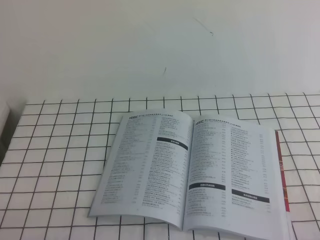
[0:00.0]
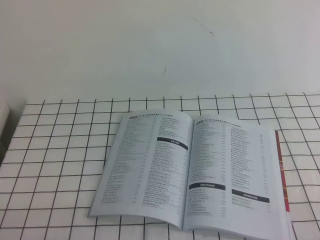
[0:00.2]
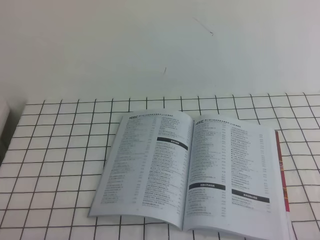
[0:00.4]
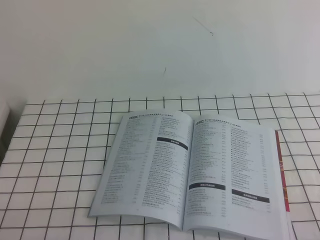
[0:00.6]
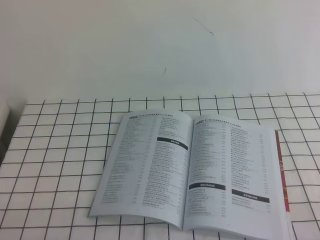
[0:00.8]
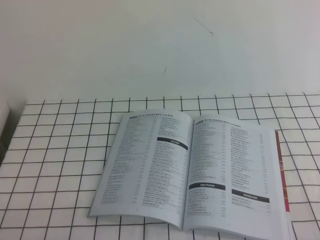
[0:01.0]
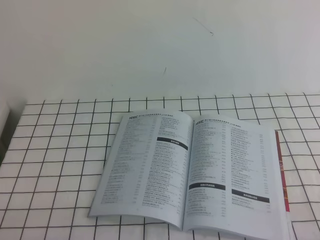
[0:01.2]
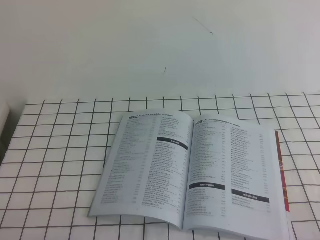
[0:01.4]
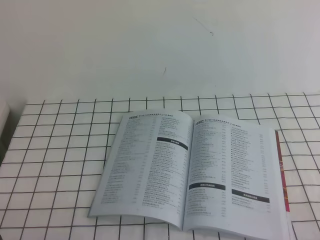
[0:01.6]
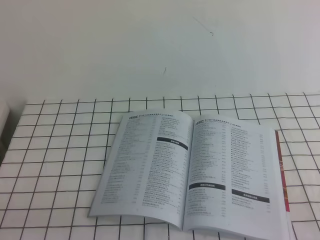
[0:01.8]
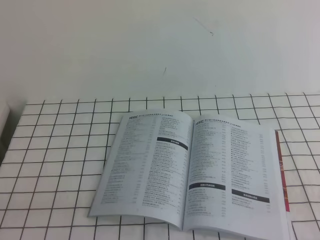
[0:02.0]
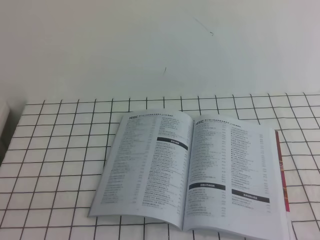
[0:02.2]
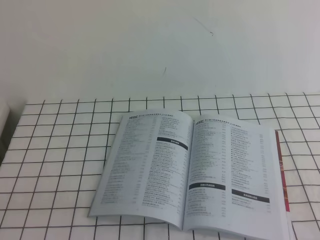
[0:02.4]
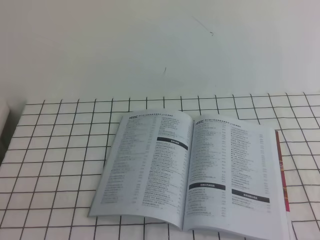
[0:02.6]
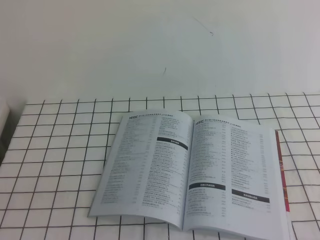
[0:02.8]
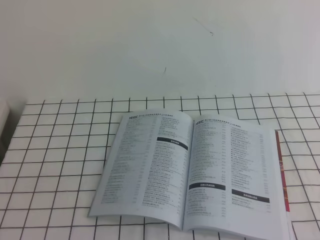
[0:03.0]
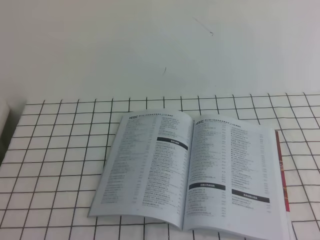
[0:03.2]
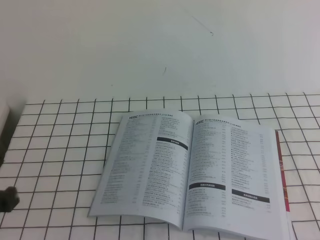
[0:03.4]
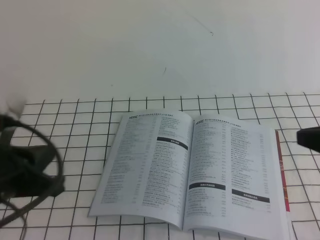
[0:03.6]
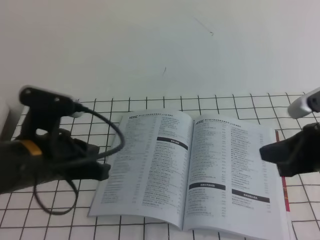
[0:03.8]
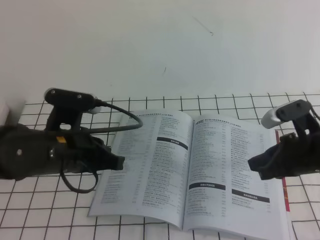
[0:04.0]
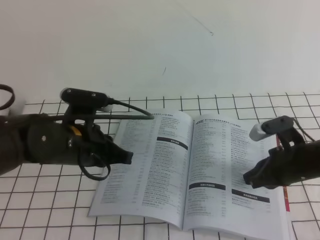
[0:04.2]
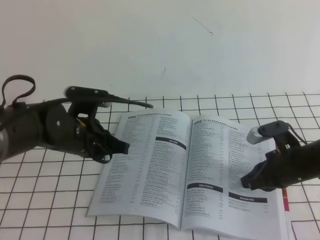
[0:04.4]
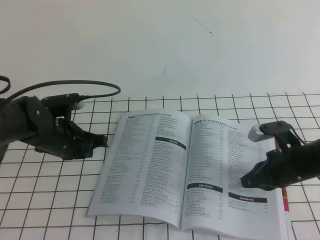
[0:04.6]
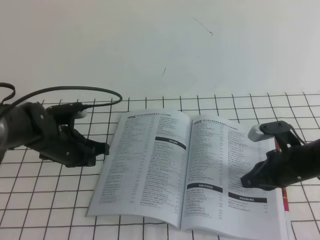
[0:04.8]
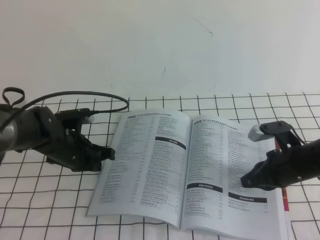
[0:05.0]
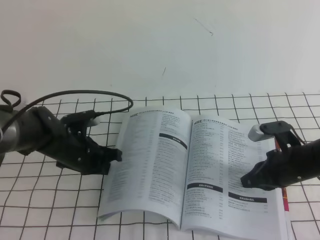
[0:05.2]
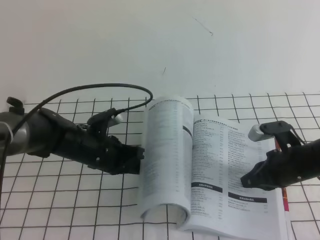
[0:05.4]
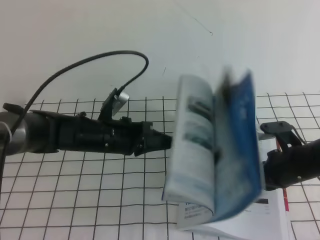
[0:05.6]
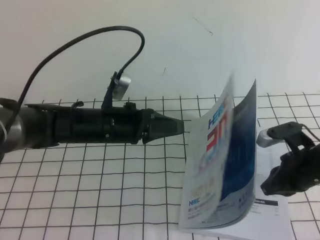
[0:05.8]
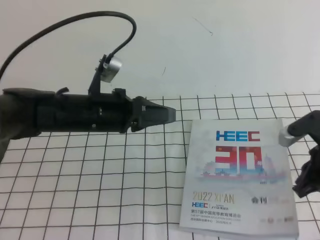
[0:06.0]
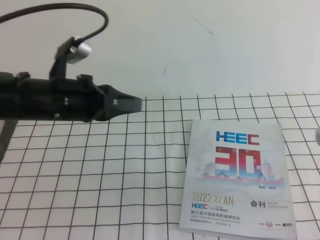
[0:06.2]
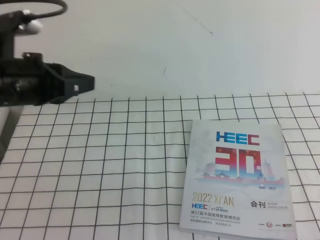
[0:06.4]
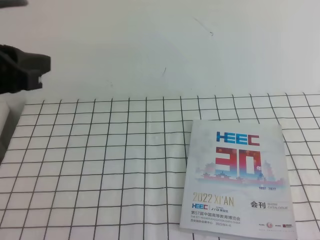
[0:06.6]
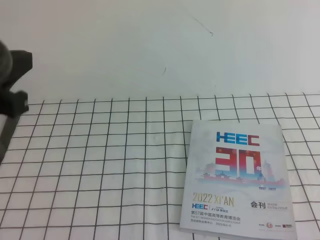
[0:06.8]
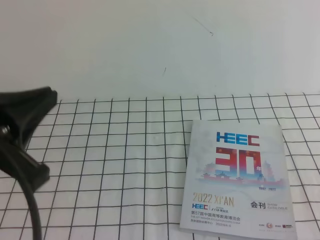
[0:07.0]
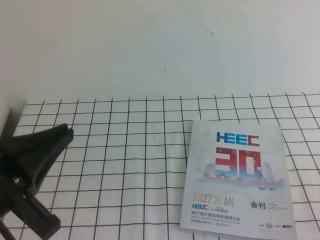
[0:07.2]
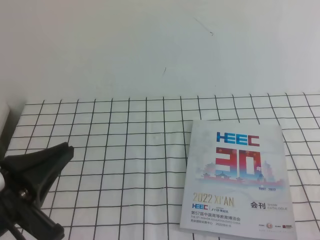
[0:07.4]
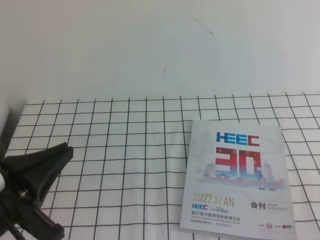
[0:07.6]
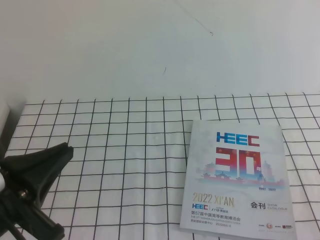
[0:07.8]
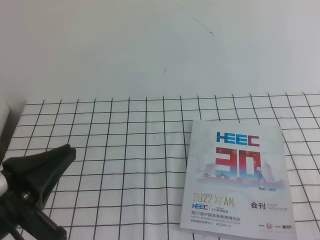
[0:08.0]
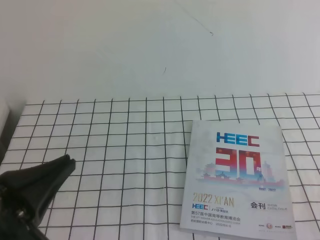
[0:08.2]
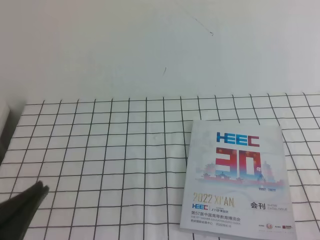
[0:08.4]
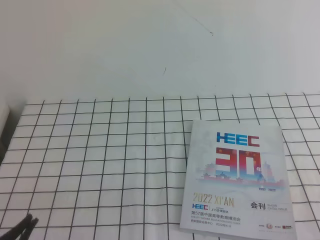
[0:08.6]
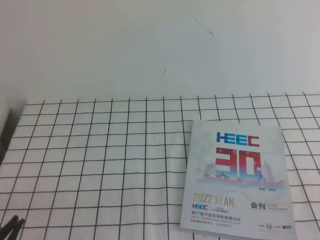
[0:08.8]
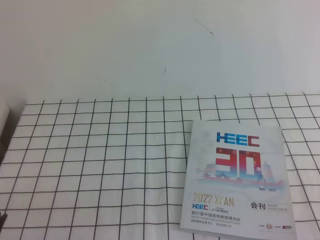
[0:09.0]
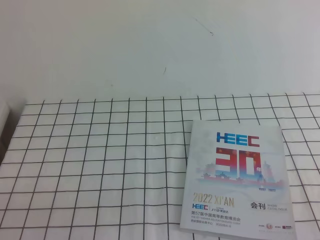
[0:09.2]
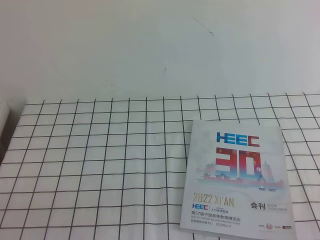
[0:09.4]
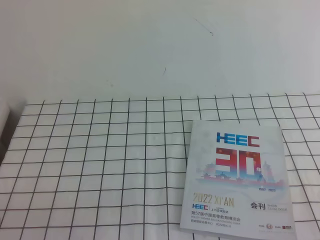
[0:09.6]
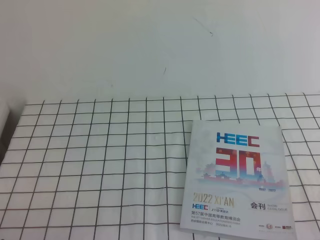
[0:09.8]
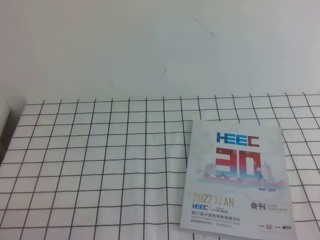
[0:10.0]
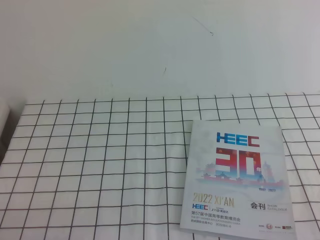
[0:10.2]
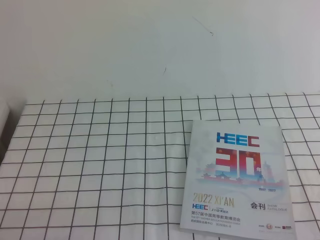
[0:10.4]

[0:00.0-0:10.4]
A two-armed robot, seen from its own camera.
Task of the whole recording: on the white tablecloth, hold the book with one hand and close it with the other.
0:03.0 to 0:04.4: The right gripper heads forward and downward, covering about 35 cm. The left gripper is displaced forward and to the right by roughly 30 cm.
0:04.4 to 0:06.0: The left gripper travels downward and back again, approximately 10 cm each way.
0:06.0 to 0:07.4: The right gripper moves backward and upward, about 25 cm; the left gripper travels backward, upward and to the left by some 25 cm.
0:07.4 to 0:09.0: The left gripper is displaced downward and backward by roughly 15 cm.

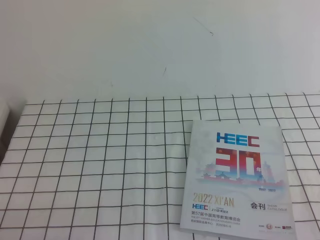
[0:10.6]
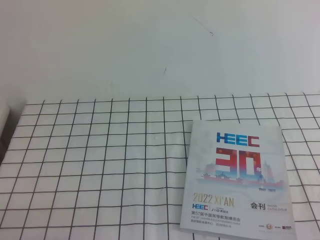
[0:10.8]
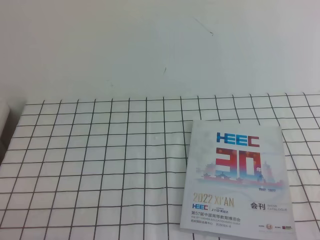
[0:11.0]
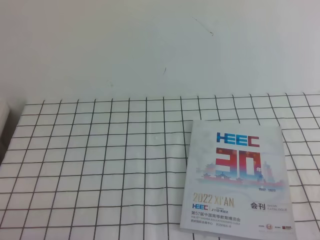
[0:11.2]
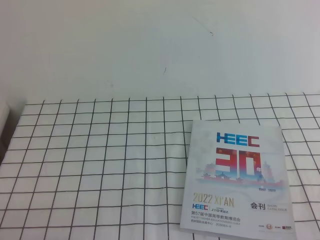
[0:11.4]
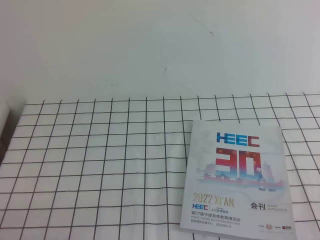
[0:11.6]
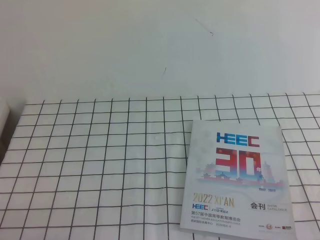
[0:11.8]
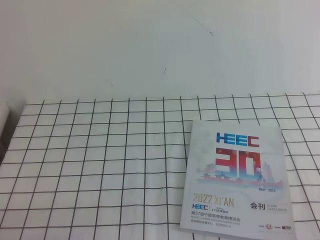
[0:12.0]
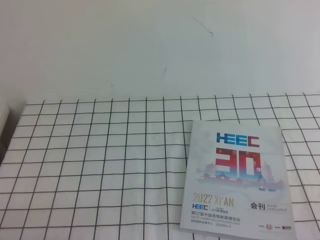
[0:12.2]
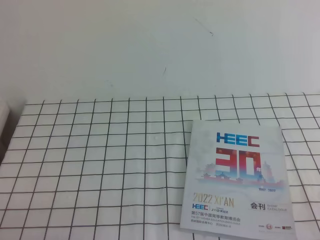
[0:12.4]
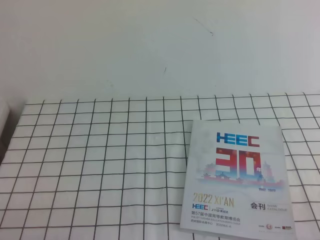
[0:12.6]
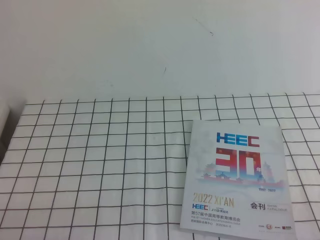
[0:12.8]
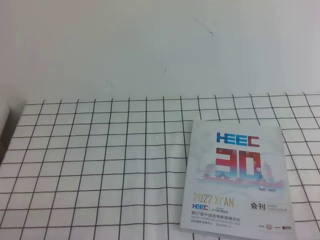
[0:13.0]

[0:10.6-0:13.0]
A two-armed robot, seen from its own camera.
Task of the whole recording: on the white tablecloth, hold the book with one hand and close it with the other.
0:10.6 to 0:11.8: The two grippers keep their place.

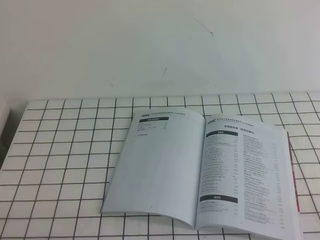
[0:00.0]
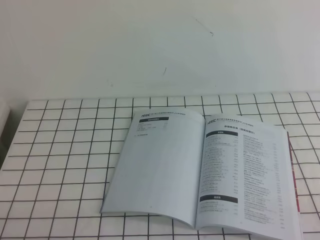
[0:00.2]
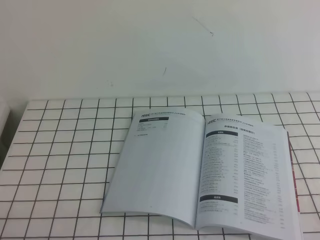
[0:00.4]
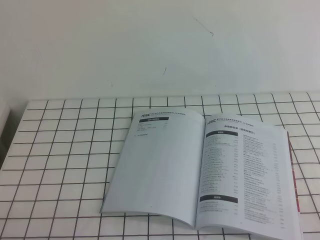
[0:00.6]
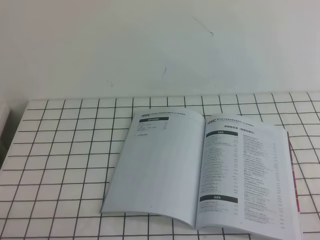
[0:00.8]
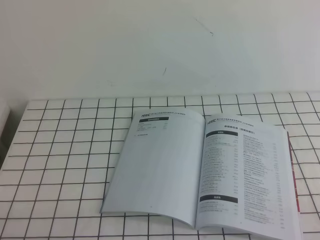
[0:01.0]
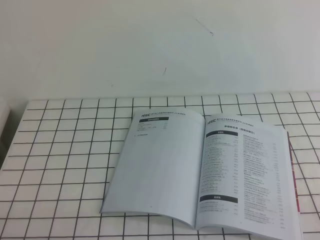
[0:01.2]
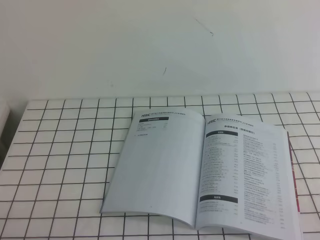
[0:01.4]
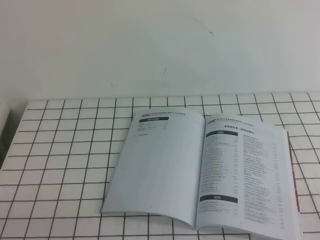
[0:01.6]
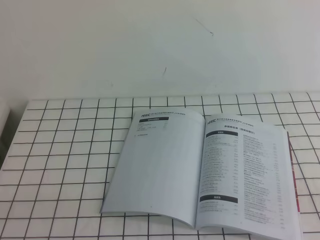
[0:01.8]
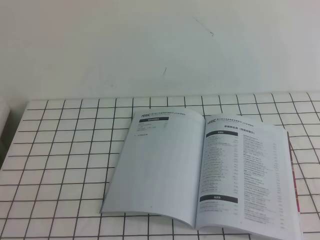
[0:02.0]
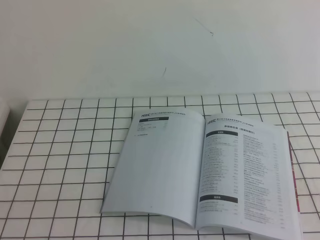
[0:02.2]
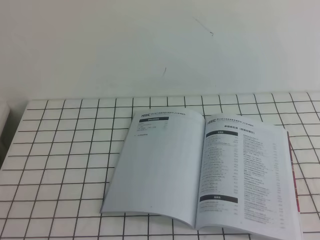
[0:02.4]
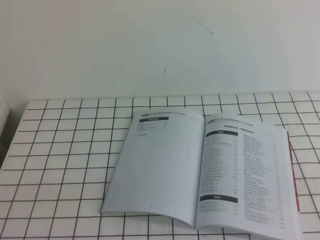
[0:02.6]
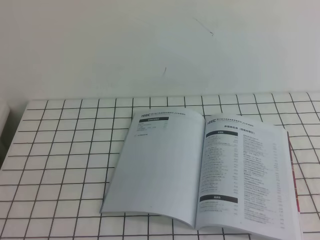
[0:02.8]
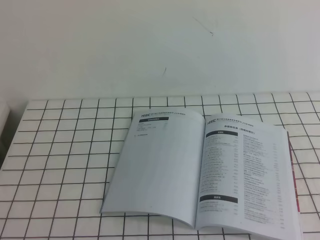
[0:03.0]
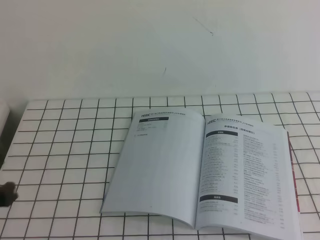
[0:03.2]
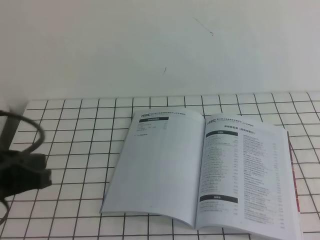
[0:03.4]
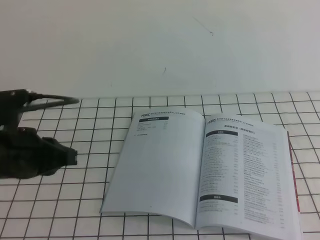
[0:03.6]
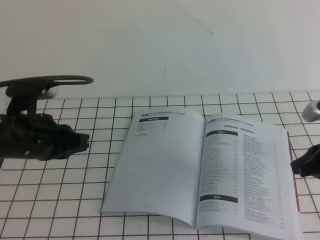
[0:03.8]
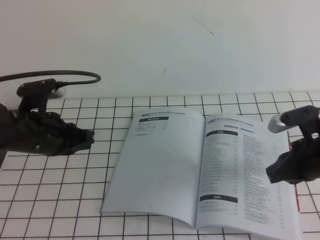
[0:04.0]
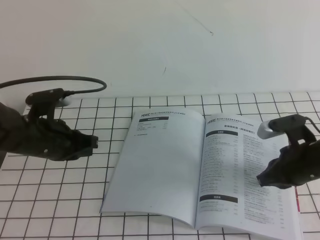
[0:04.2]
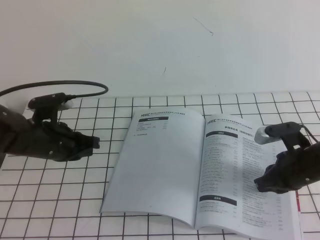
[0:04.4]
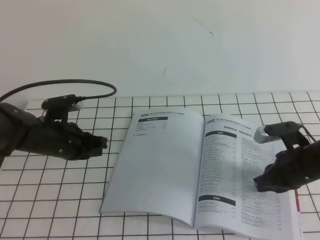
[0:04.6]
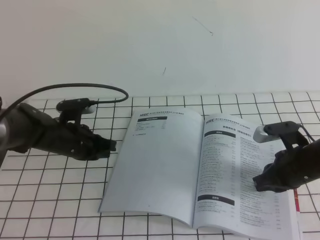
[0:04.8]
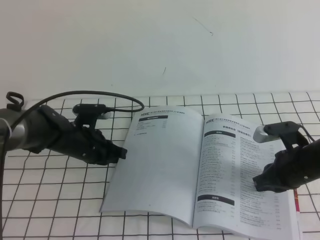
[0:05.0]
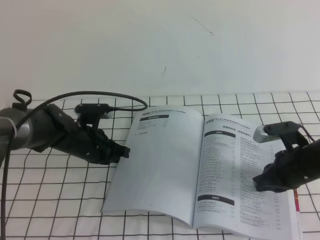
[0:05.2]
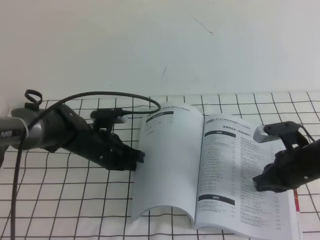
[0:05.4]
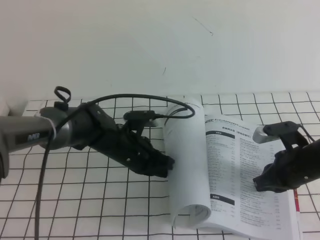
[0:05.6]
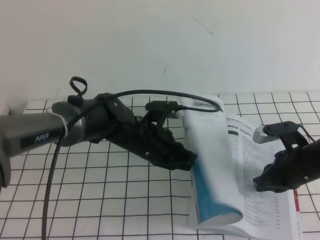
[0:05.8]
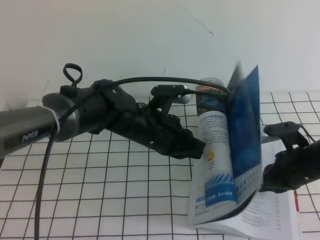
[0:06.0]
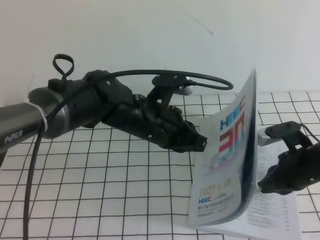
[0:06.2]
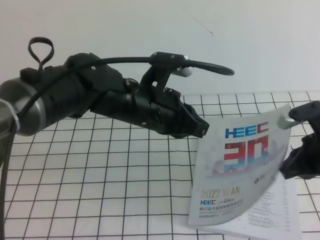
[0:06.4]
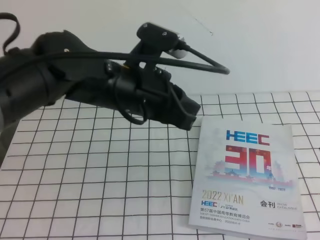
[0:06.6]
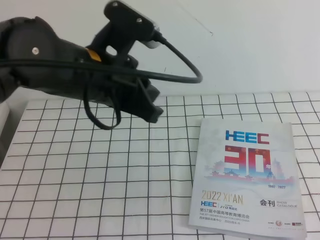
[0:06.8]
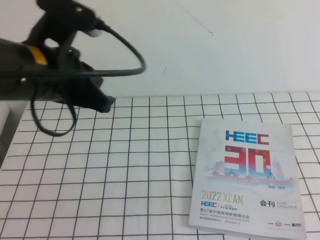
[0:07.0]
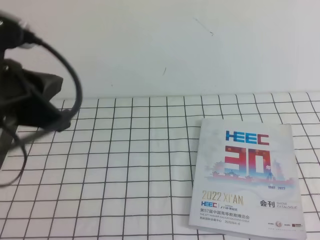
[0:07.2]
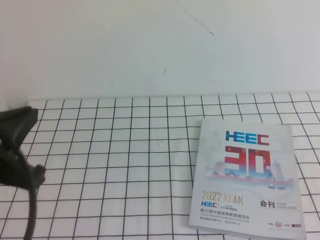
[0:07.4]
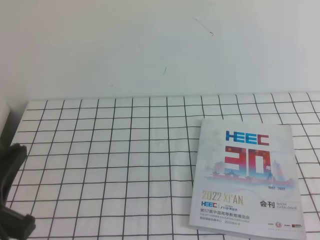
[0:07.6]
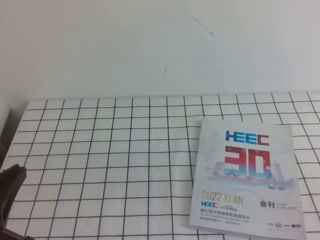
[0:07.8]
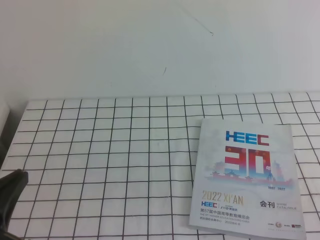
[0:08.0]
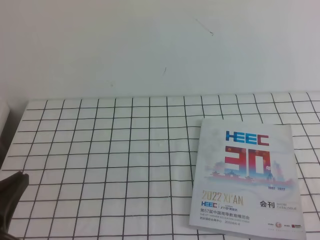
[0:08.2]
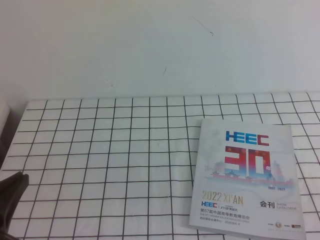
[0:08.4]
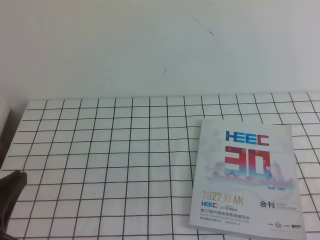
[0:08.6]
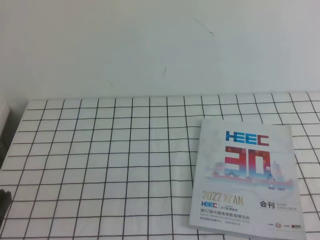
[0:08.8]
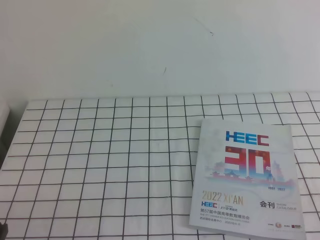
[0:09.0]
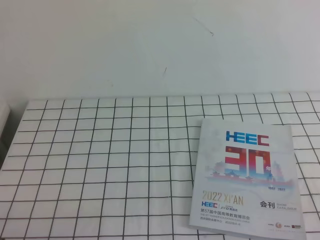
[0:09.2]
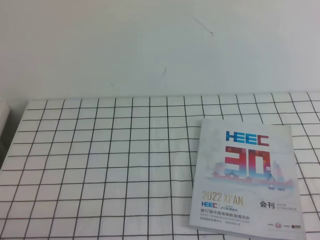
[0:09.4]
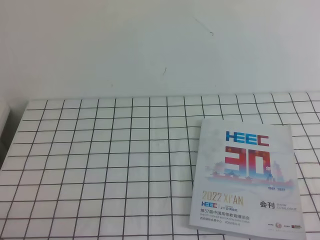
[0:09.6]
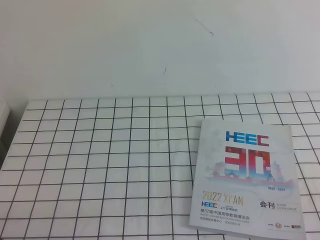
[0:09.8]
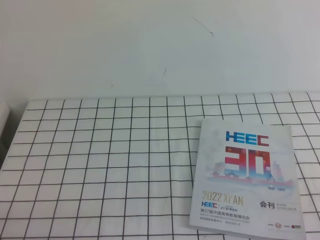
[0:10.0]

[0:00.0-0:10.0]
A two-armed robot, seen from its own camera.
Task of the whole recording: on the white tablecloth, hold the book with one hand and close it with the other.
0:00.0 to 0:01.4: The two grippers keep their place.
0:02.8 to 0:04.2: The right gripper is displaced forward and downward by approximately 30 cm. Meanwhile the left gripper heads forward, covering about 30 cm.
0:04.2 to 0:05.8: The left gripper travels to the right by about 15 cm.
0:05.8 to 0:07.2: The left gripper shifts some 30 cm upward, backward and to the left. Meanwhile the right gripper goes some 30 cm upward and backward.
0:07.2 to 0:08.6: The right gripper travels downward and backward by approximately 10 cm. Meanwhile the left gripper heads backward, downward and to the left, covering approximately 15 cm.
0:08.6 to 0:10.0: The left gripper travels downward by approximately 10 cm.
